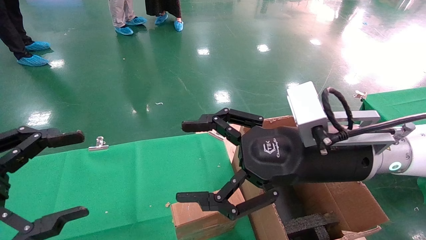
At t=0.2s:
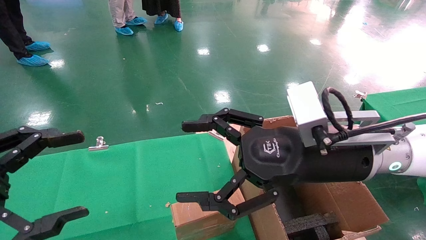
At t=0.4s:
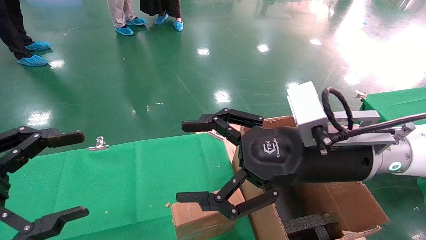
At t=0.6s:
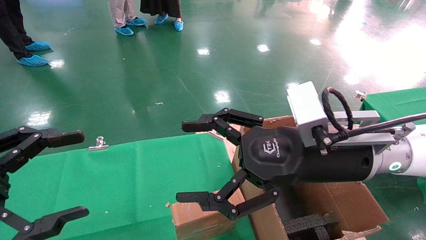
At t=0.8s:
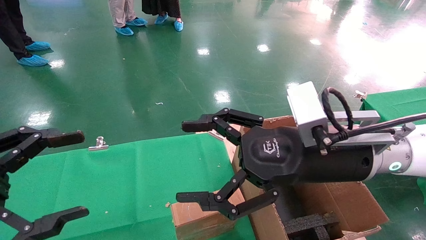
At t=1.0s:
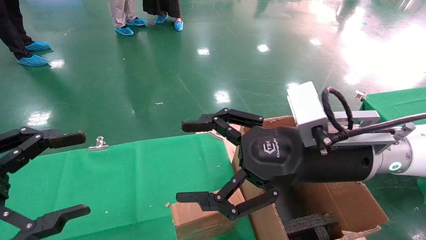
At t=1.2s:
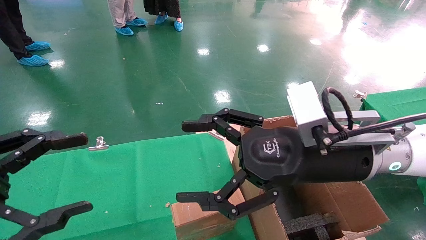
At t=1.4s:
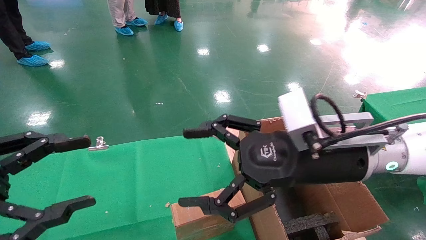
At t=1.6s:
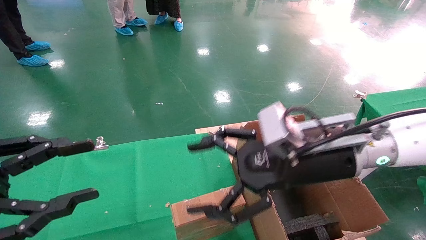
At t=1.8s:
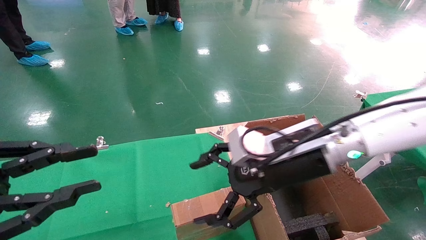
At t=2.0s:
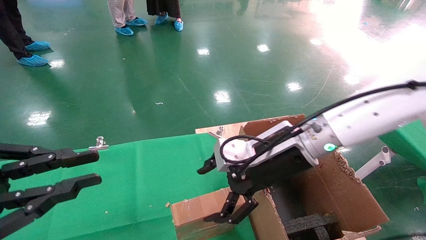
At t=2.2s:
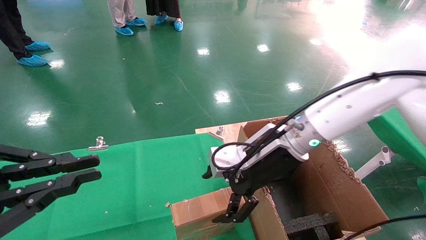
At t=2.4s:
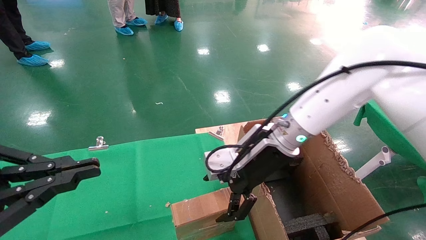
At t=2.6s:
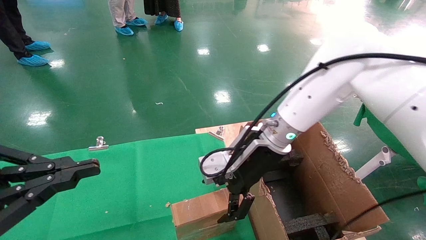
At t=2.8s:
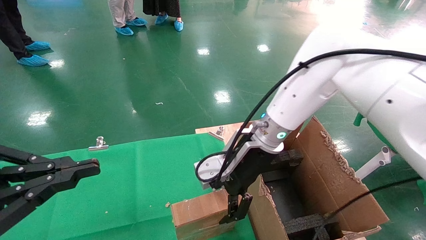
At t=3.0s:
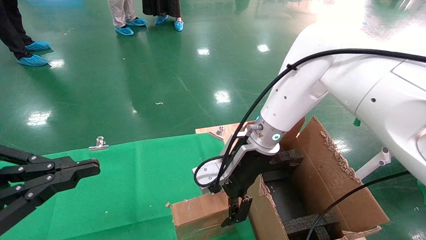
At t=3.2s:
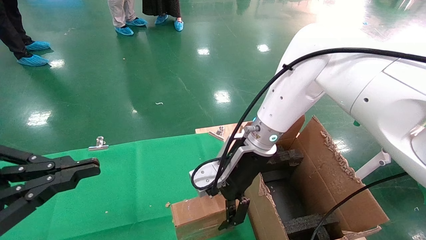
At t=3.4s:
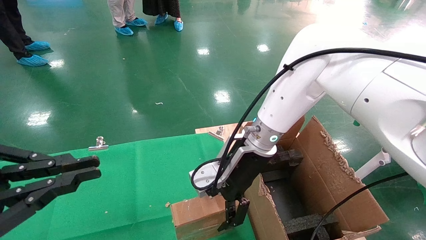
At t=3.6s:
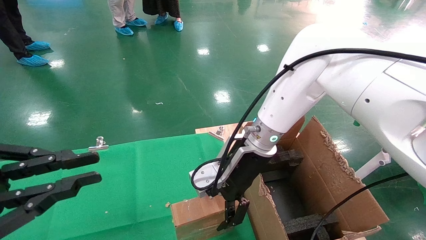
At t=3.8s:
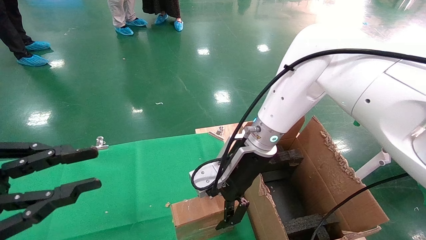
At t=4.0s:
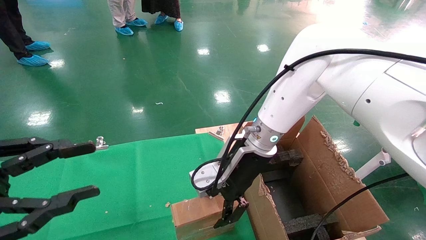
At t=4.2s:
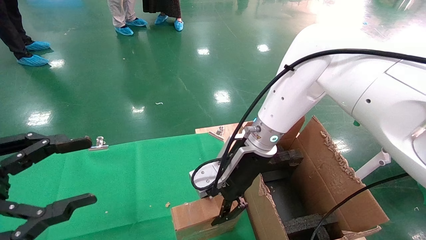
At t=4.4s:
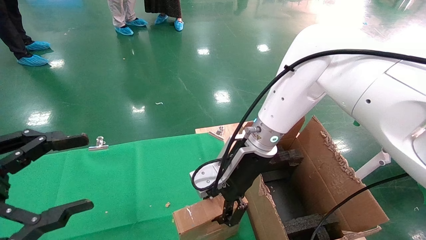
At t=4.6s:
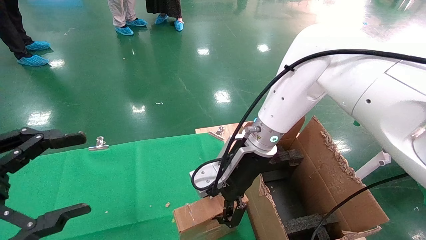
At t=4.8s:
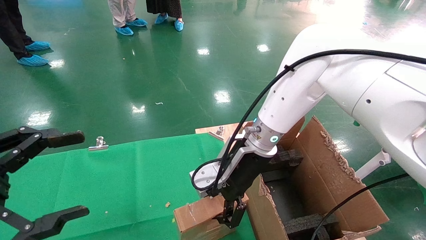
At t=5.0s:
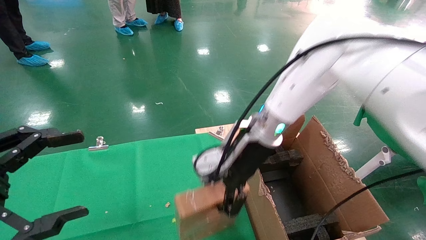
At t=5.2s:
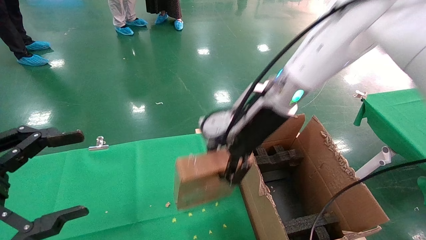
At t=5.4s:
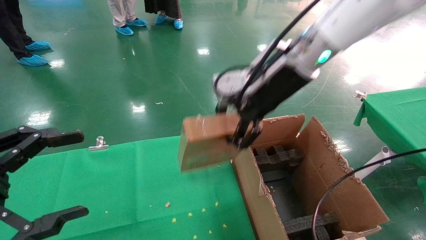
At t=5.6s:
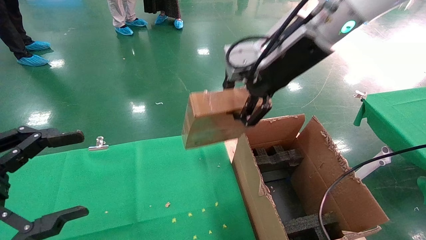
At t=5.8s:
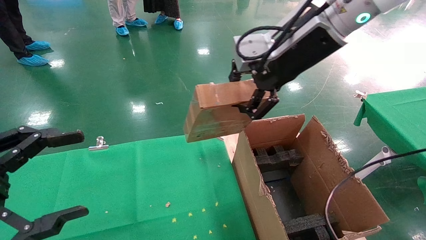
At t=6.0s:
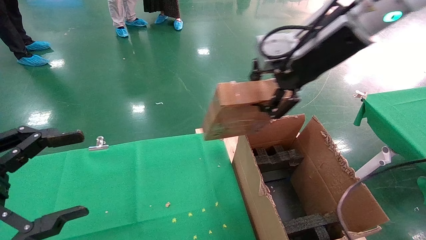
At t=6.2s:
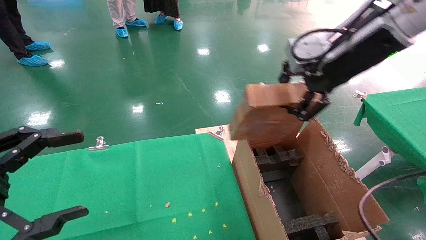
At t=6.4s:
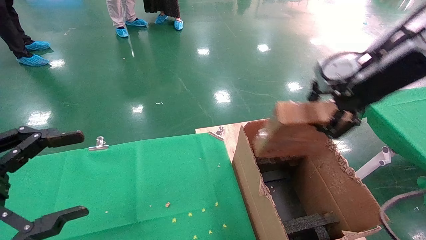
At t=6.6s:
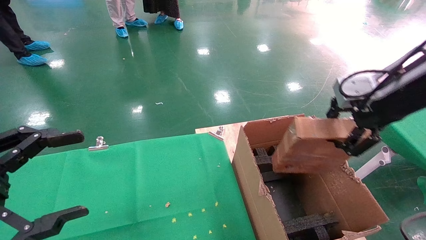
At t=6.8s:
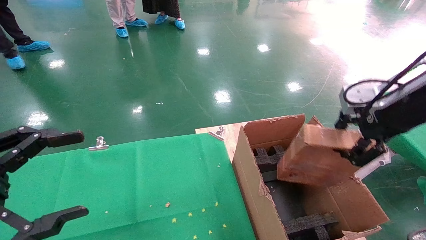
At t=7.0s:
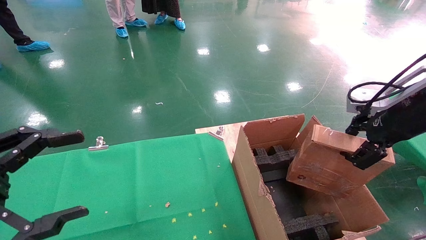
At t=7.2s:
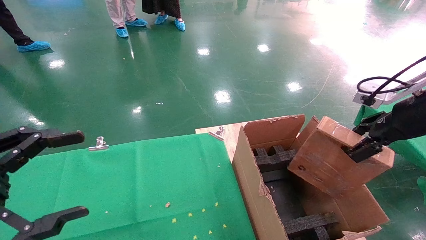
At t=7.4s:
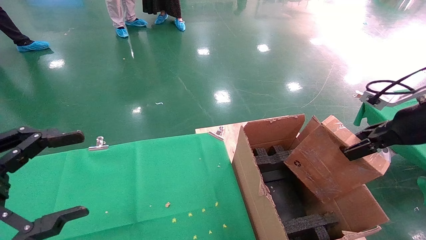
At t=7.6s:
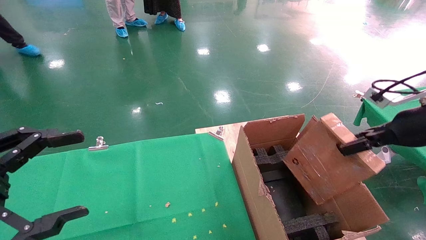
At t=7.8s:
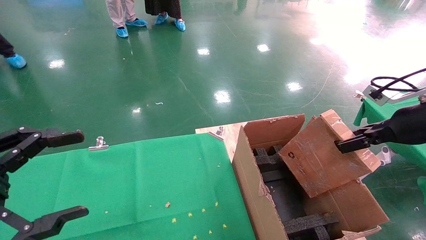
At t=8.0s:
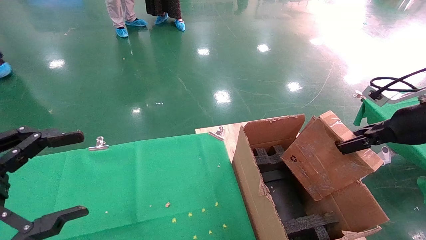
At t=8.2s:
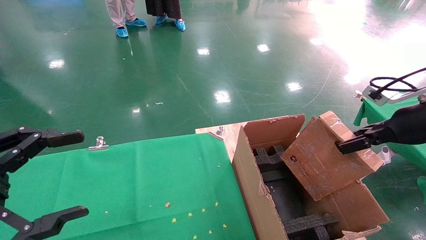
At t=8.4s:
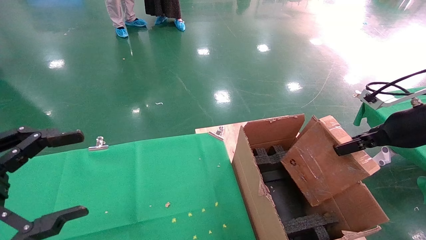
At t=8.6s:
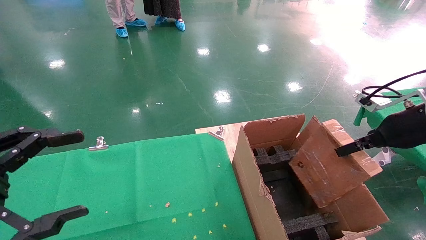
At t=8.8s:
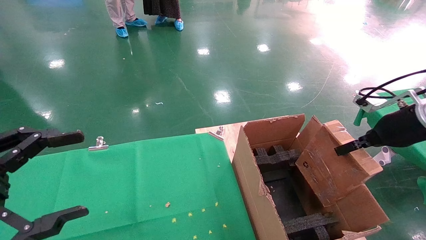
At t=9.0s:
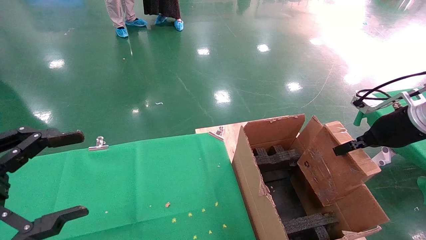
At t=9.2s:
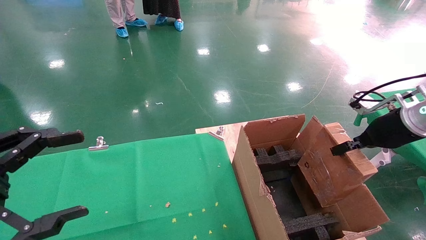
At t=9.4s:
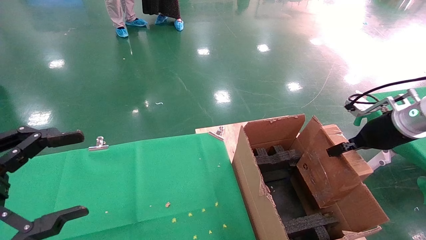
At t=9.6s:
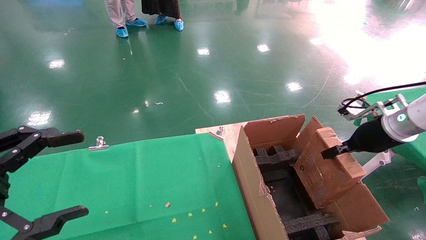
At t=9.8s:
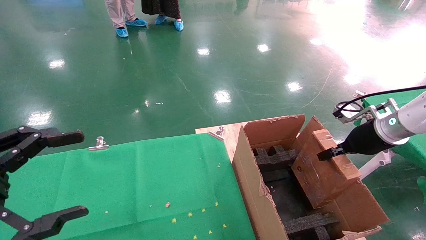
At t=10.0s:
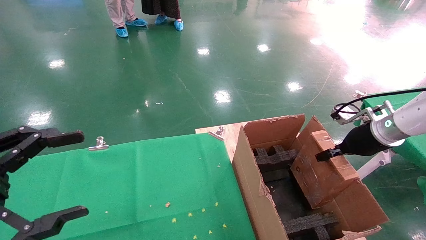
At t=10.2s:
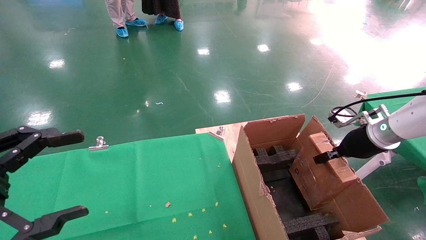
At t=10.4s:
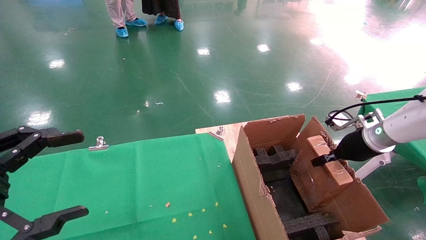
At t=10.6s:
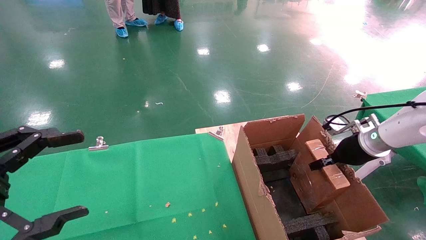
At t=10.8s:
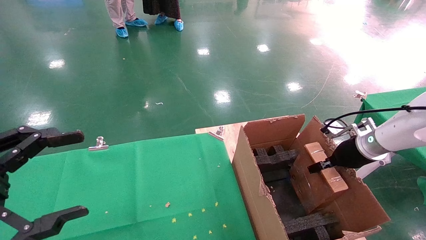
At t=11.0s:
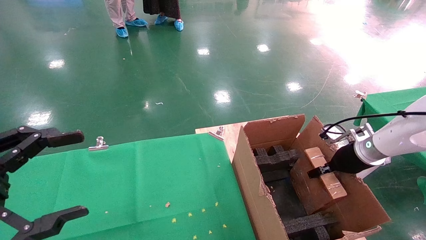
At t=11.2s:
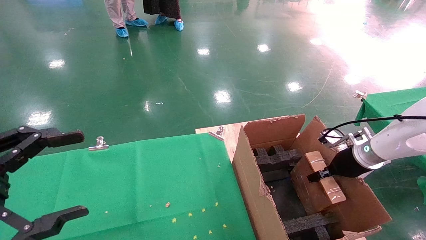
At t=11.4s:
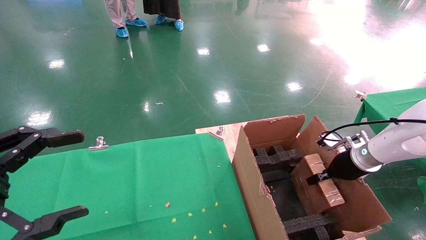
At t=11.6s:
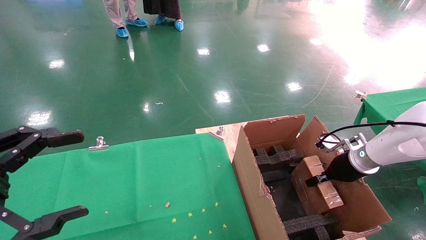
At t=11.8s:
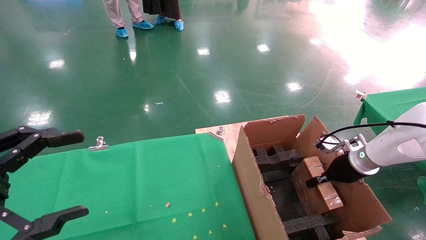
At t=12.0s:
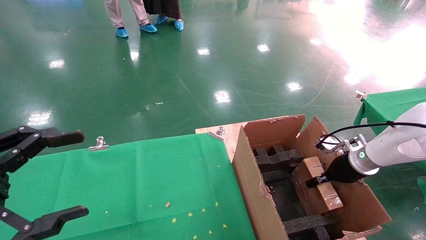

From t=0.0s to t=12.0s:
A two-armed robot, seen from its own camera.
Task of the whole recording: using a robotic arm to pick up a cardboard box and palace it the carton.
Step, from t=1.6s to t=4.4s: Pick up the mouse and the power cord paper box.
From t=1.6s to t=3.0s: The right gripper moves forward and to the left, some 15 cm, while the left gripper closes.
From t=3.0s to t=4.4s: The right gripper closes its fingers. The left gripper opens its fingers.
From t=4.4s to t=6.0s: The right gripper heads upward and to the right, covering approximately 25 cm, and closes.
From t=6.0s to t=7.6s: The right gripper shifts approximately 20 cm to the right and downward.
From t=7.6s to t=9.0s: The right gripper changes place by approximately 5 cm.
From t=9.0s to t=10.4s: The right gripper moves downward and forward, about 10 cm.
From t=10.4s to t=12.0s: The right gripper travels downward by about 10 cm.

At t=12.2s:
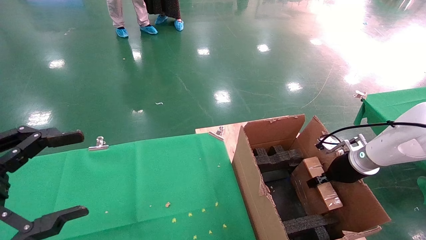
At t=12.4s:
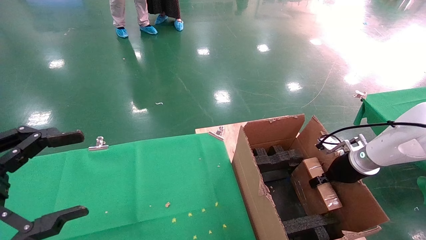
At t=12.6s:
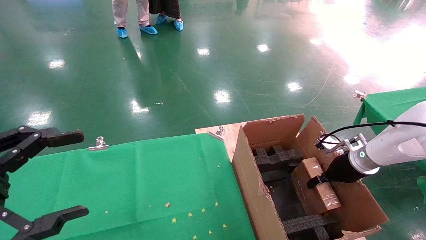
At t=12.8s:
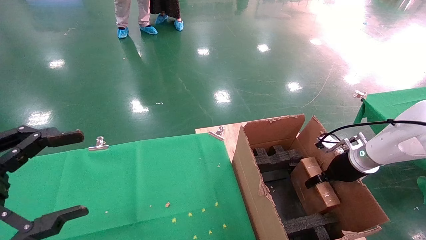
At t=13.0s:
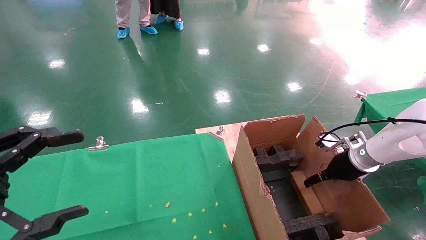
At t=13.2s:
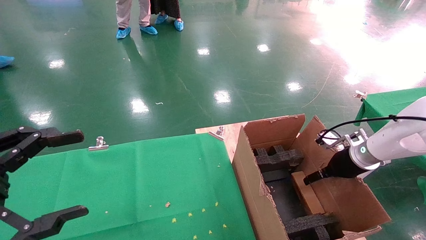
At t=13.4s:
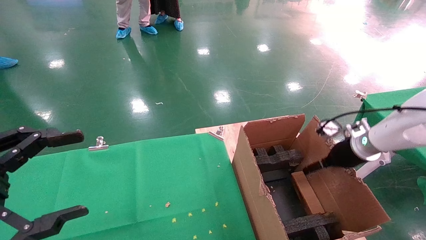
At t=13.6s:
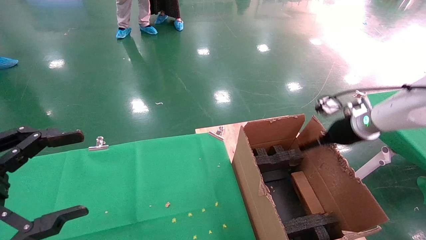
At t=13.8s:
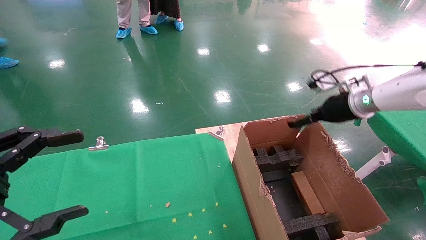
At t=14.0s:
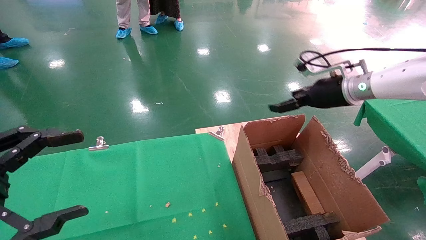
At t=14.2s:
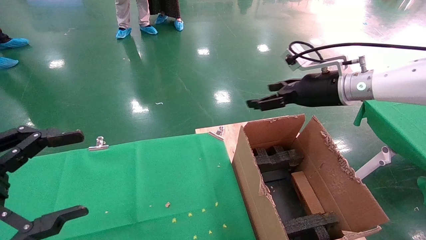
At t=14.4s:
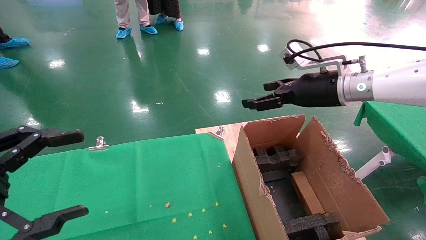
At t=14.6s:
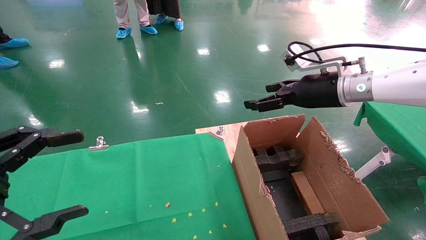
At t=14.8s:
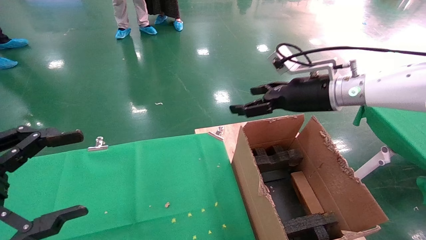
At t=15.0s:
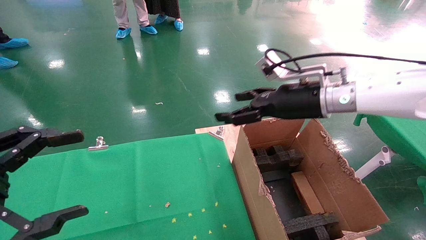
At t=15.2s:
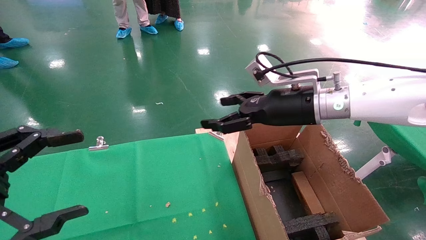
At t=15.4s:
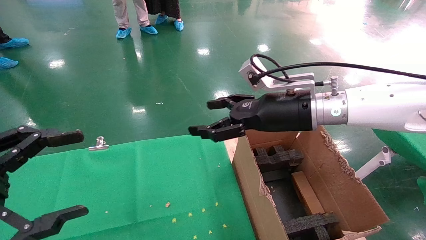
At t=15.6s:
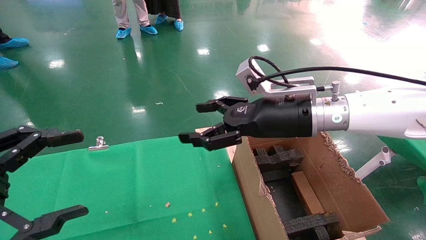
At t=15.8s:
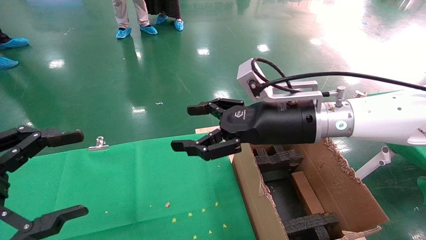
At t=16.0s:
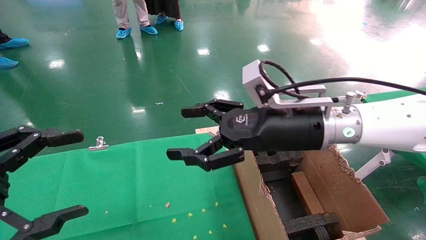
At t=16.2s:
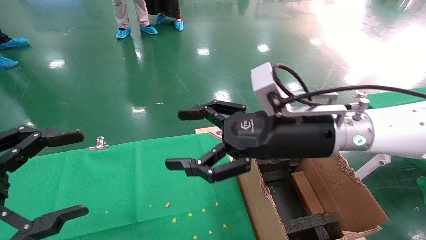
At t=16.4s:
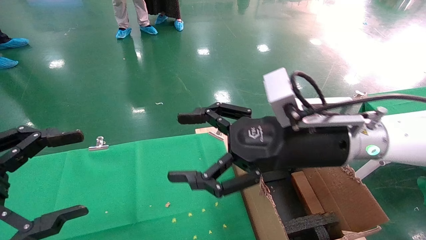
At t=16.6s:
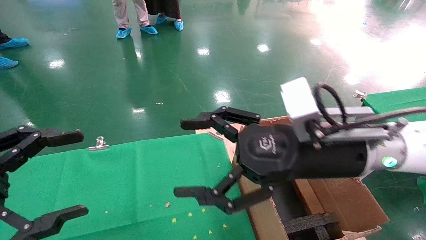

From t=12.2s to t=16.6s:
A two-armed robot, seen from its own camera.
Task of the whole recording: using a robotic arm to pick up a cardboard box and palace it the carton.
From t=12.2s to t=13.6s: The right gripper is displaced upward by approximately 15 cm, and opens.
From t=13.6s to t=15.2s: The right gripper moves to the left, about 15 cm.
From t=15.2s to t=16.6s: The right gripper travels backward by about 10 cm.
